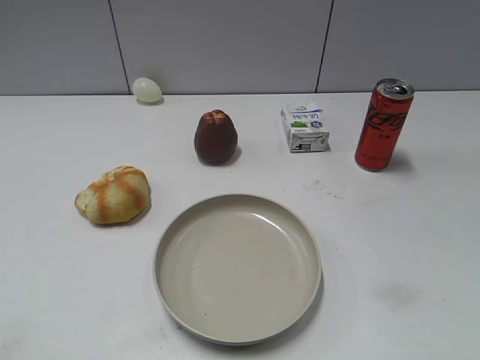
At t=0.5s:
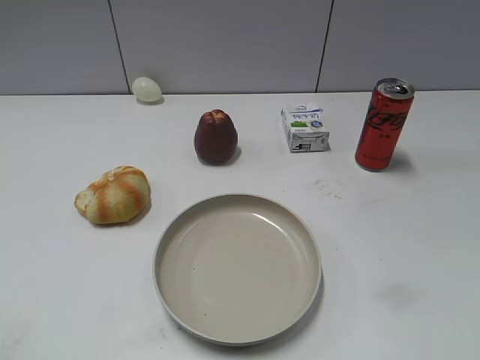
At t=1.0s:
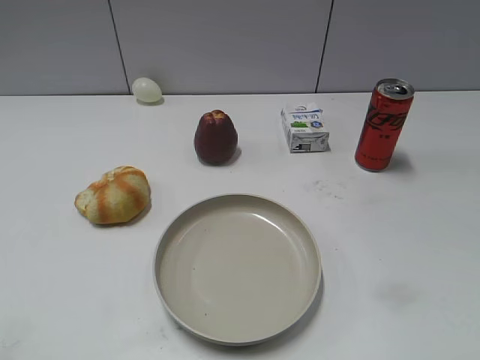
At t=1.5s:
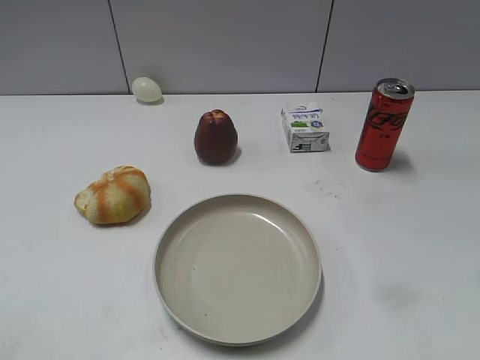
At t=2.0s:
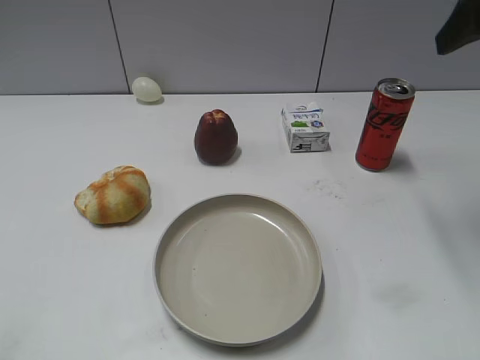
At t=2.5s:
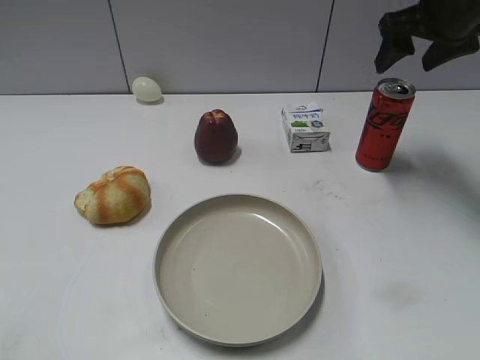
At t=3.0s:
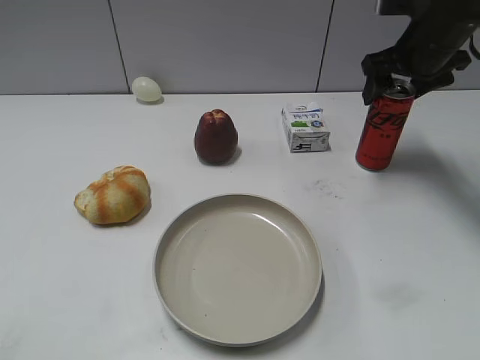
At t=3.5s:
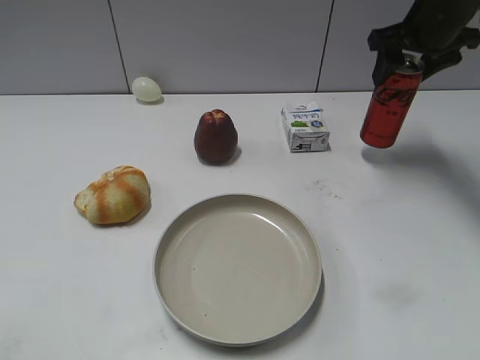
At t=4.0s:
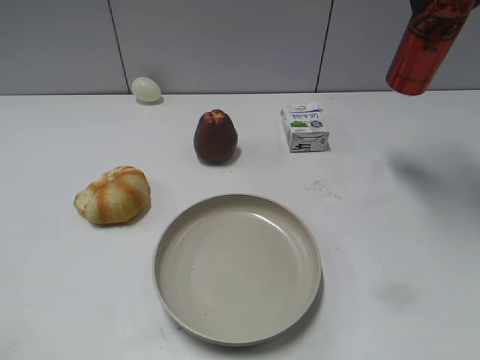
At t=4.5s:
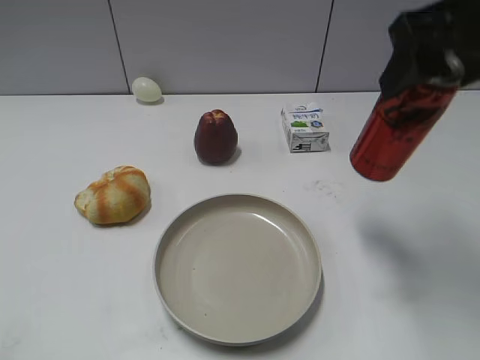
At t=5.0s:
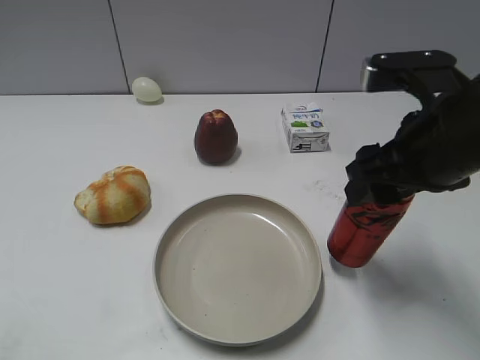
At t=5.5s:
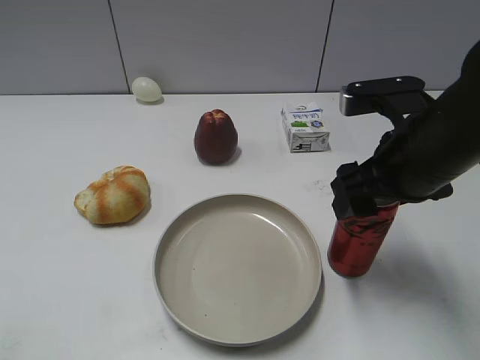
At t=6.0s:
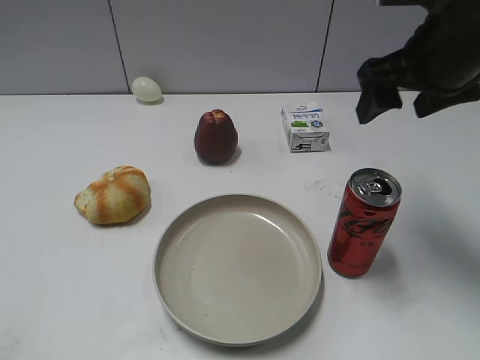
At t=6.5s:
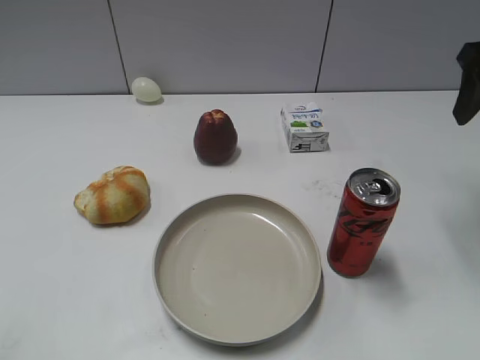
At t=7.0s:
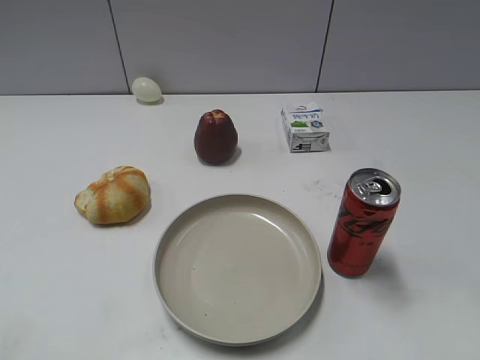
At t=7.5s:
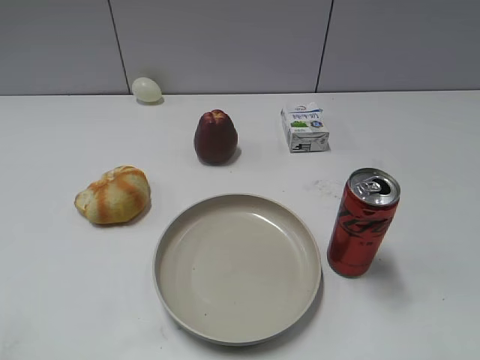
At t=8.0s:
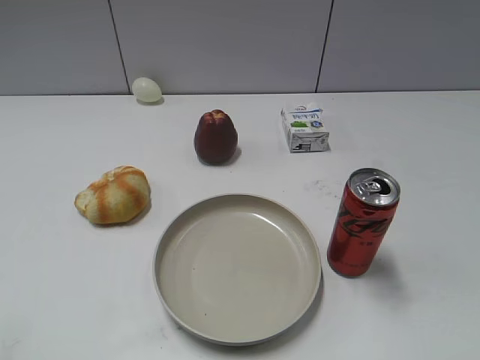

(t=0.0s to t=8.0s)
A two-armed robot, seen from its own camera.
Step, t=1.0s - t=3.0s: Grasp the cola with right gripper.
Step, t=3.5s - t=5.5s: Place the cola on the table with right gripper.
t=2.0s - t=4.0s: The right gripper moves forward, roughly 10 cm, travels downward and back again, approximately 15 cm each way, and closes up.
t=4.0s - t=6.0s: The right gripper shifts approximately 10 cm downward and backward, and opens up.
t=6.0s - t=8.0s: The right gripper shifts about 30 cm backward, and closes.

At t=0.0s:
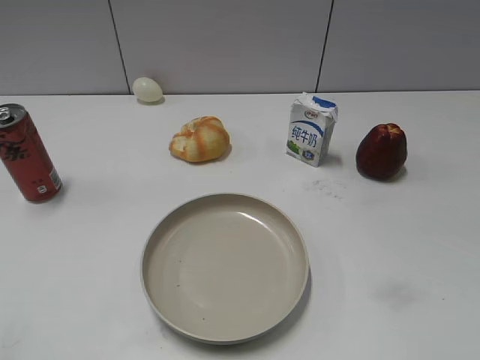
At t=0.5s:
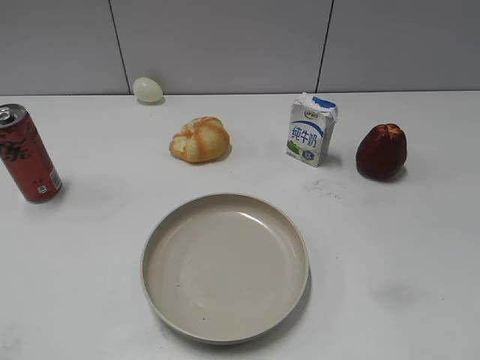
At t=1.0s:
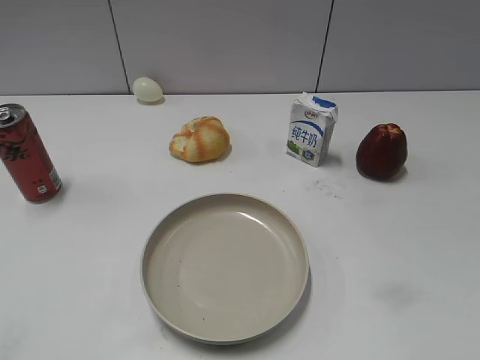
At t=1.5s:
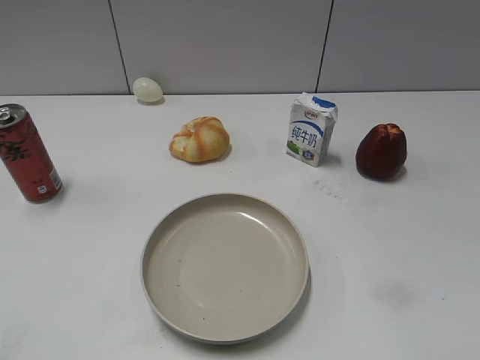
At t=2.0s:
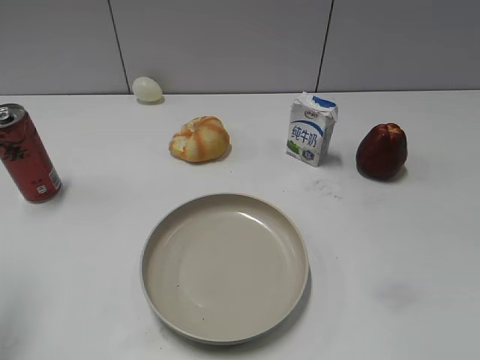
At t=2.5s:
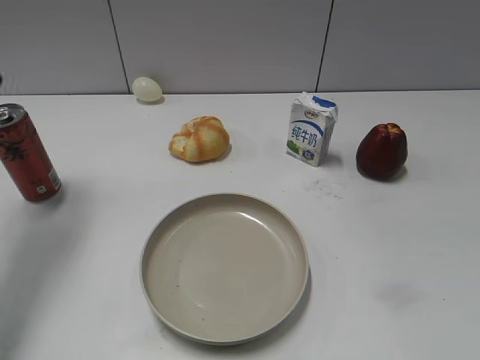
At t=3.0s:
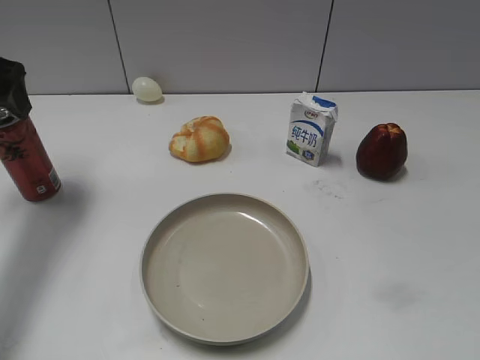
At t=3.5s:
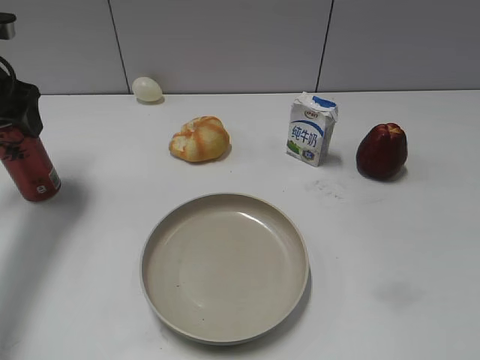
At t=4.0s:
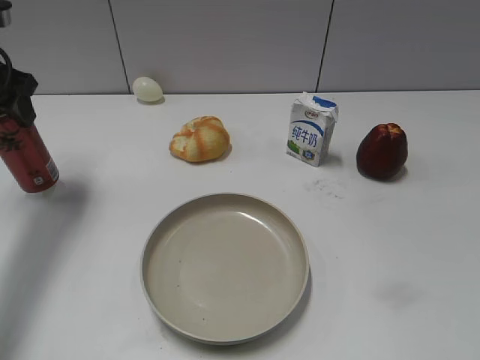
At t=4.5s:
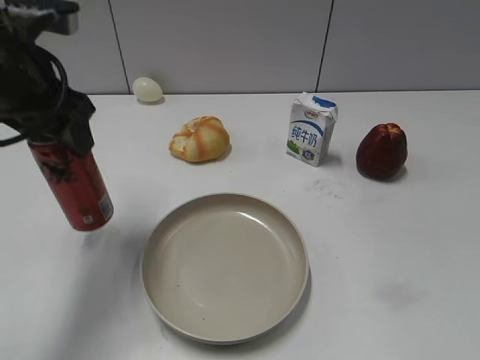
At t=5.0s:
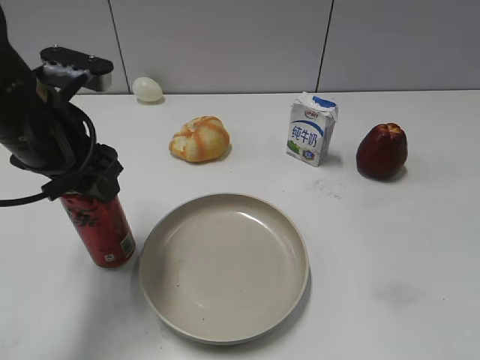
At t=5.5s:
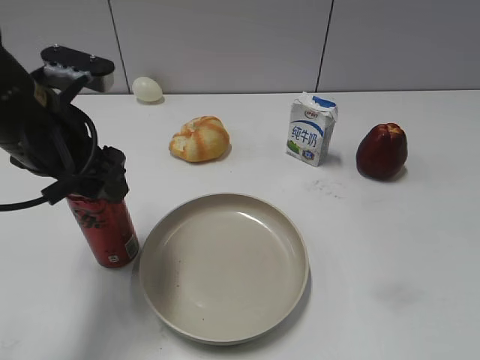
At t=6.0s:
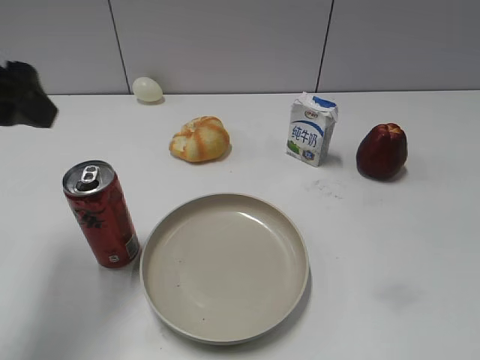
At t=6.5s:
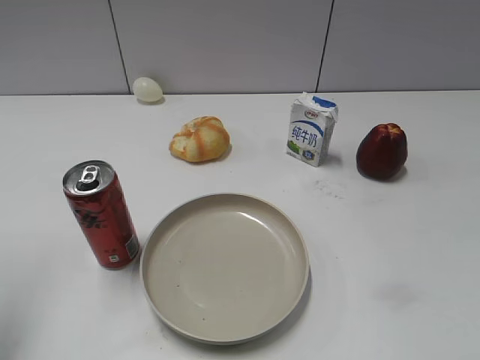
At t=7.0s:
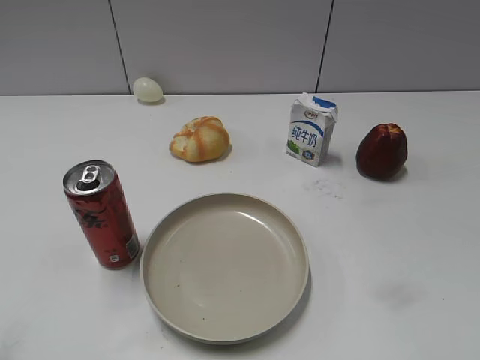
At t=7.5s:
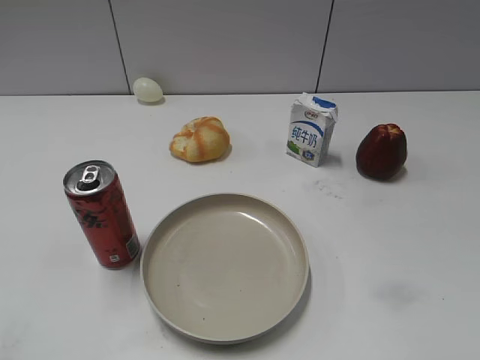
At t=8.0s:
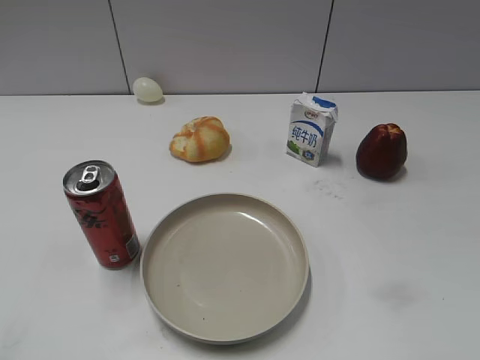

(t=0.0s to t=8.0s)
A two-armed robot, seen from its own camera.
Step, t=1.5s - t=3.5s: Grasp the cola with left gripper.
Step, t=4.0s - t=5.5s: Place the cola on the table with left gripper.
t=2.0s - t=4.0s: The left gripper shifts roughly 15 cm forward and to the right, and closes up.
t=4.0s - t=6.0s: The left gripper goes about 10 cm backward, and opens its fingers.
t=6.0s - t=8.0s: The left gripper is displaced backward by approximately 25 cm.

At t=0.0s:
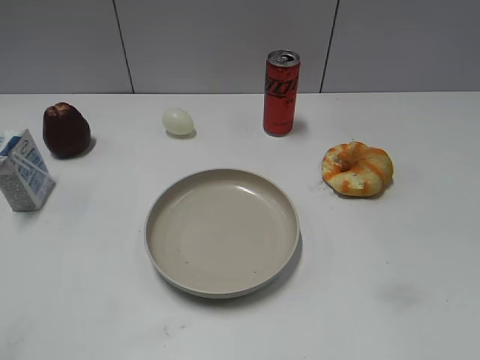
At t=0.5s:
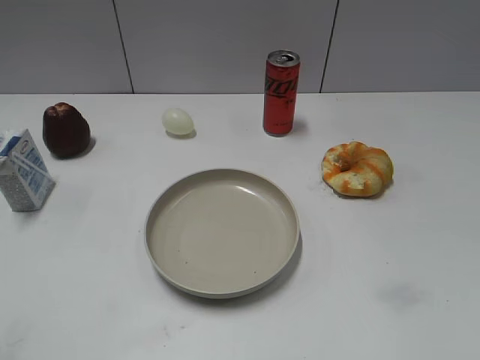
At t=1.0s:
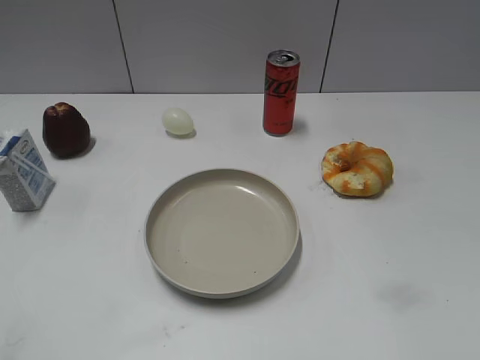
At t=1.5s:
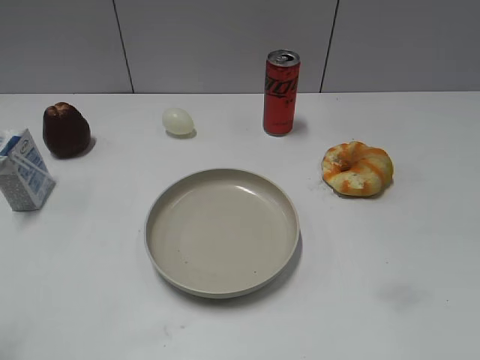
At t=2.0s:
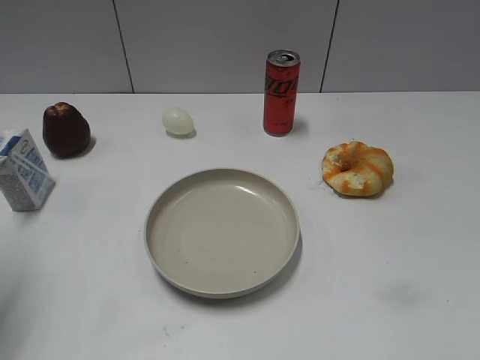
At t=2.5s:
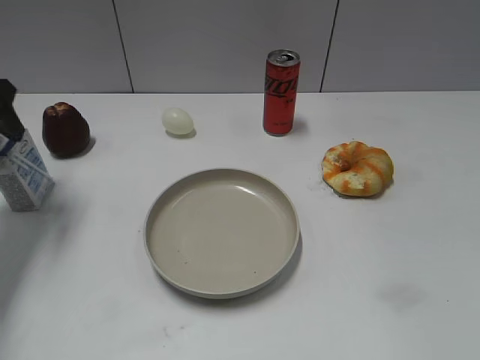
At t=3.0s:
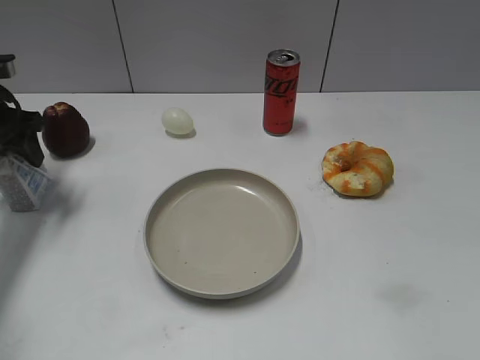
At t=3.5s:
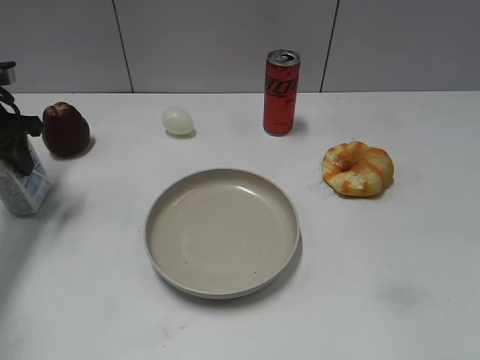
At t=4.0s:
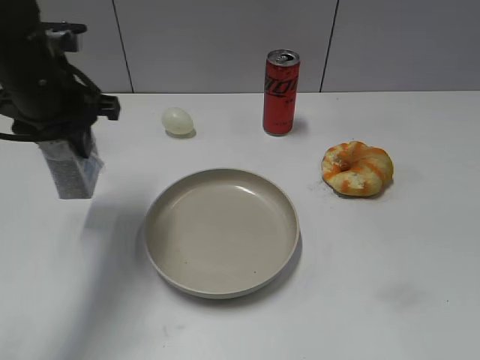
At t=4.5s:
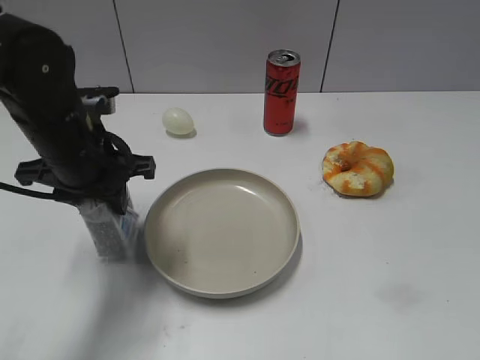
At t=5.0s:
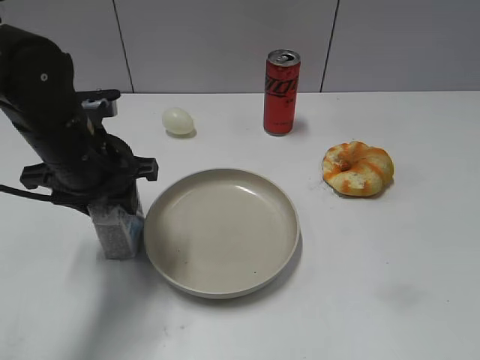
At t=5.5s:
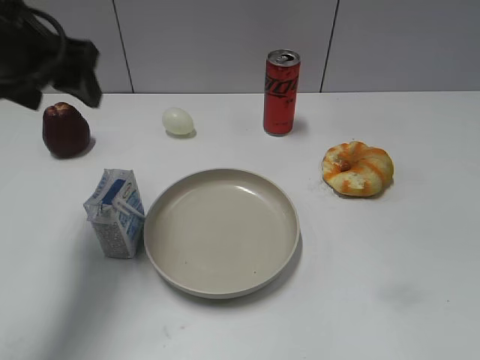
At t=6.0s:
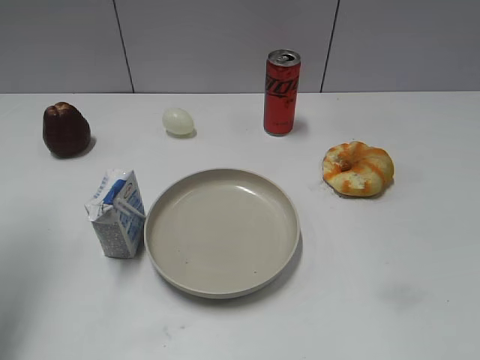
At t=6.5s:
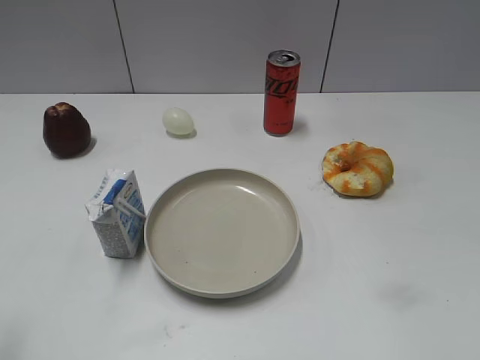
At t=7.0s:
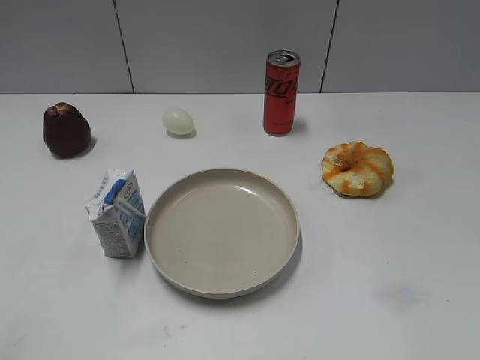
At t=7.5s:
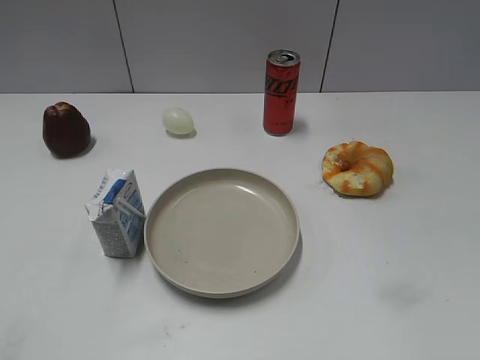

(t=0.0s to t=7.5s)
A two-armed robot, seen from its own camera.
Step, t=1.5s - t=3.0s: Grasp the milk with left gripper.
Step, t=3.5s - t=5.0s: Place the milk on the table with left gripper.
t=2.0s - t=4.0s: The left gripper goes some 20 cm to the right and forward, and closes its fingers.
t=4.0s - t=5.5s: The left gripper is displaced upward and to the left by roughly 10 cm, and opens up.
t=5.5s - t=7.5s: The left gripper travels backward by about 30 cm.
